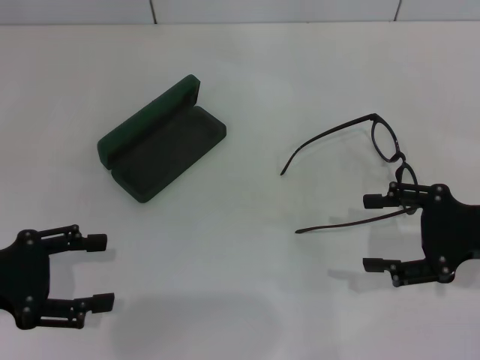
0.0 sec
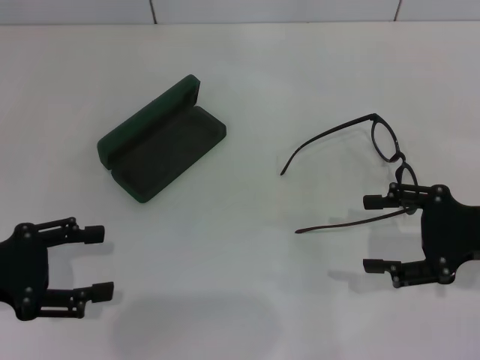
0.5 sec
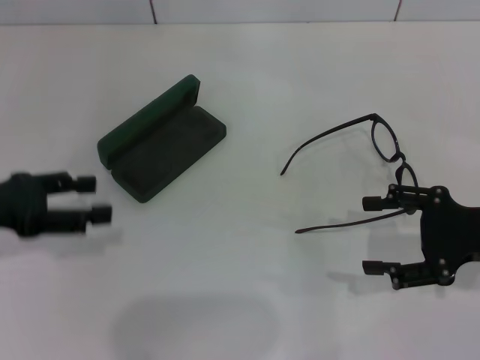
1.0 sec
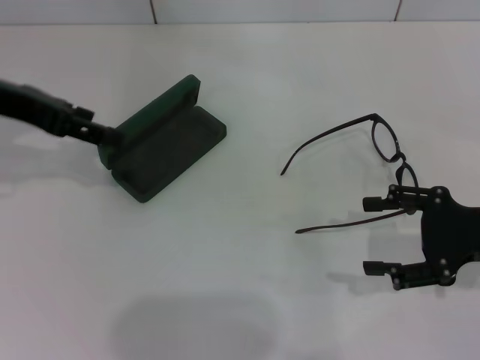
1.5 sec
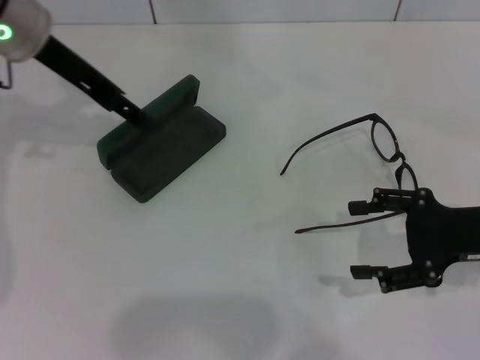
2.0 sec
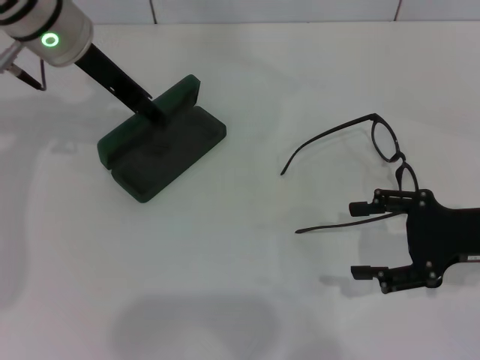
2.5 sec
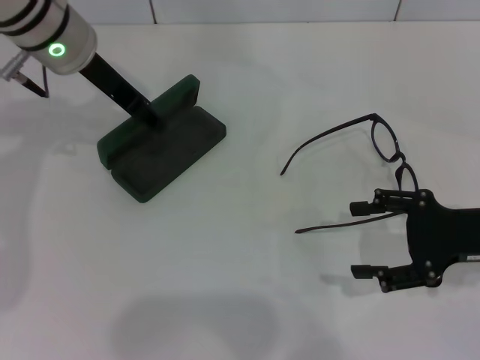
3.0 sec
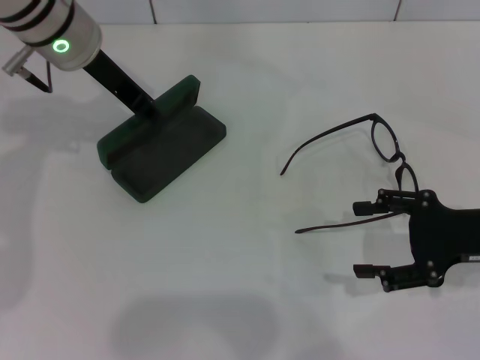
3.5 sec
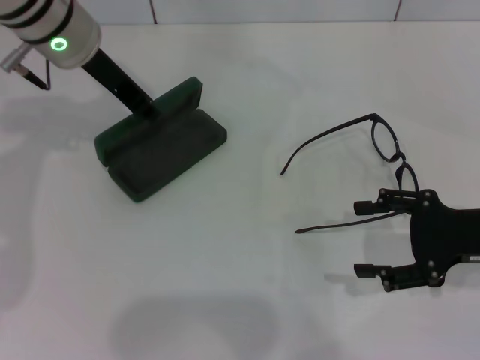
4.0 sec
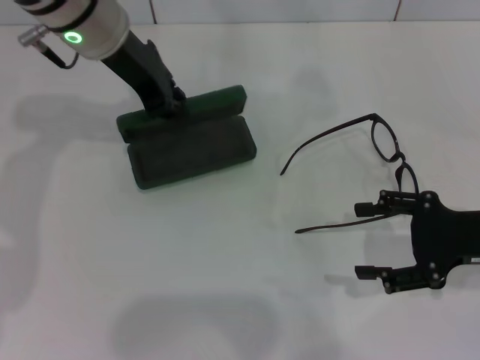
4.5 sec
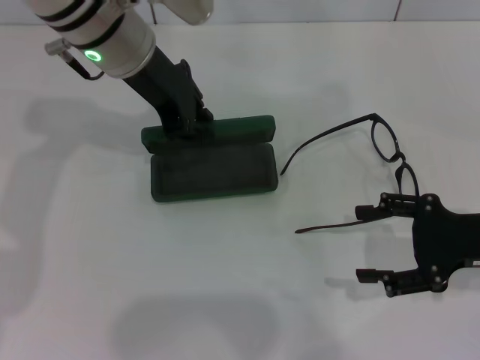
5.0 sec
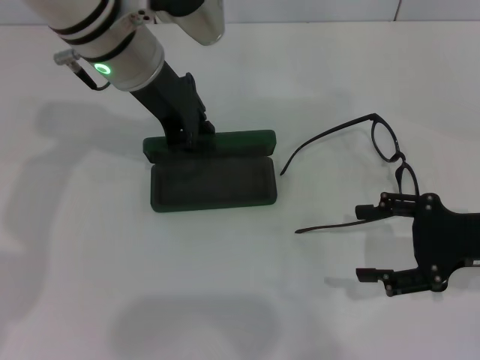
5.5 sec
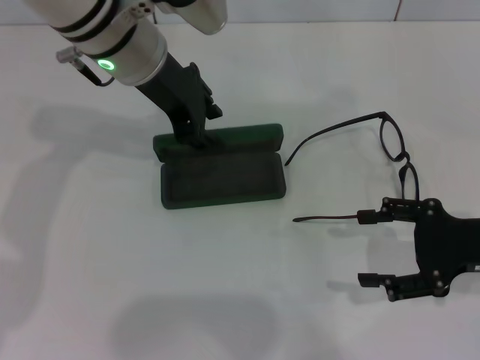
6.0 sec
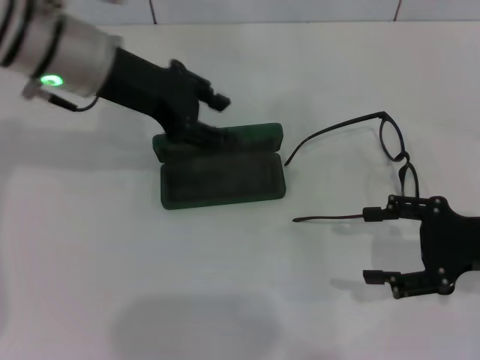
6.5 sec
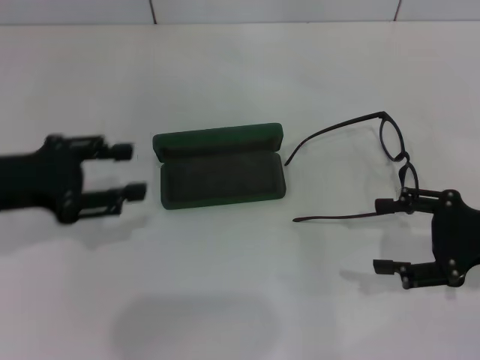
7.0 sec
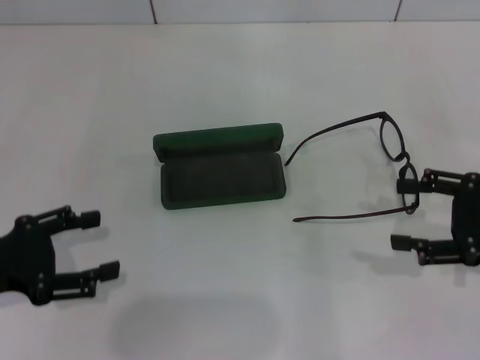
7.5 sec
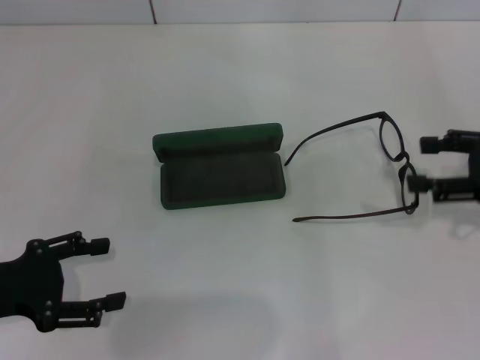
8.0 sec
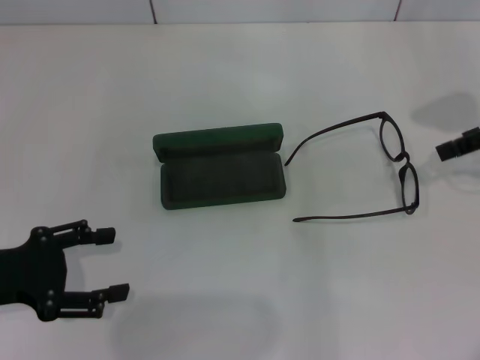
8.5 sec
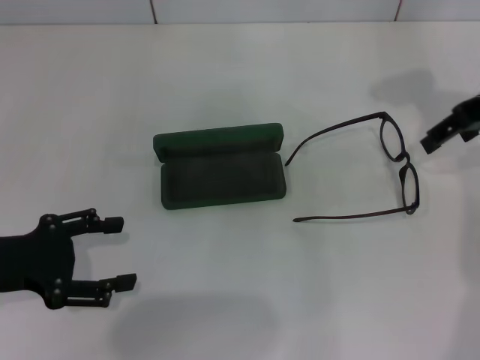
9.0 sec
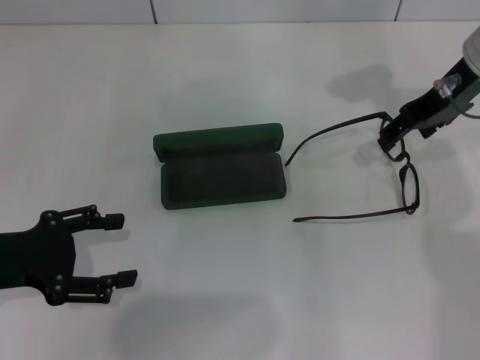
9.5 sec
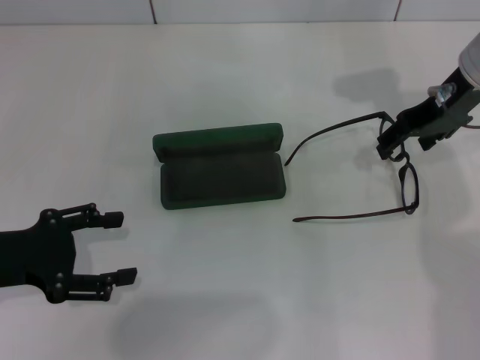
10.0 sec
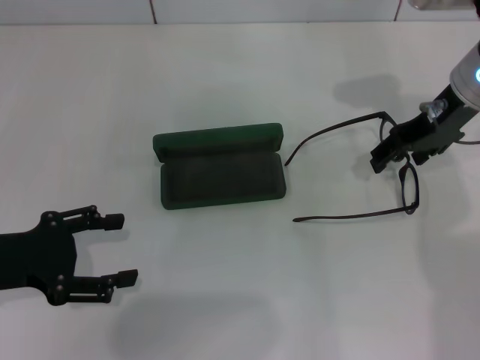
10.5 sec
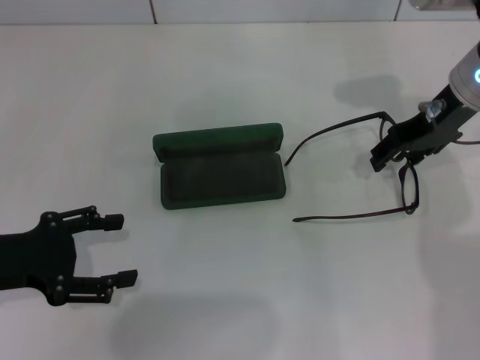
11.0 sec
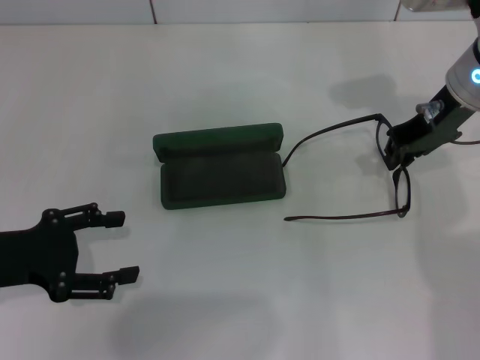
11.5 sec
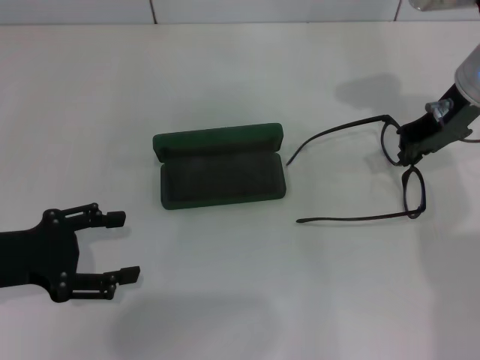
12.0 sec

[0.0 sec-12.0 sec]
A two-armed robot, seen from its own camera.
Step, 0.0 sec to 3.5 sec: Grab the glasses case with your left hand.
Step, 4.0 sec to 5.5 sec: Place the glasses case in the center of the table with your left hand.
Step, 6.0 sec to 11.5 sec: Grab the eyeglass frame with your right hand.
0.0 sec to 2.0 sec: The left gripper is displaced forward, upward and to the right by some 25 cm.
2.0 sec to 4.0 sec: The left gripper closes.
4.0 sec to 6.0 sec: The left gripper heads to the right, covering approximately 5 cm.
6.0 sec to 8.0 sec: The left gripper shifts about 30 cm to the left, backward and downward, and opens up, while the right gripper changes place by about 5 cm.
8.0 sec to 10.0 sec: The right gripper heads to the left, forward and upward, covering some 20 cm.
10.0 sec to 12.0 sec: The right gripper closes.

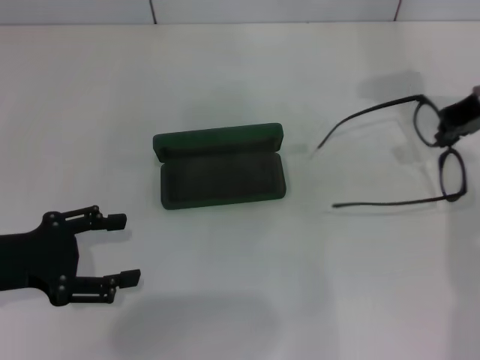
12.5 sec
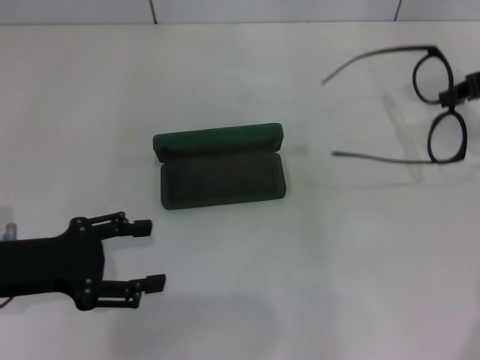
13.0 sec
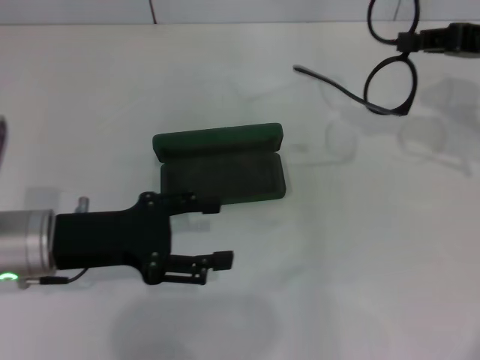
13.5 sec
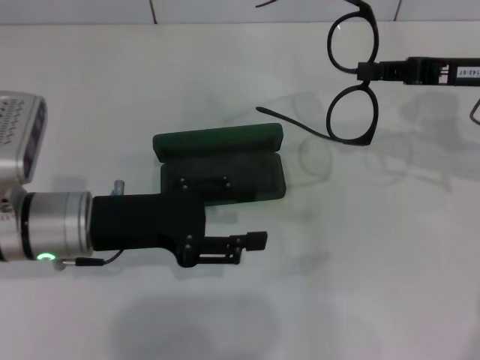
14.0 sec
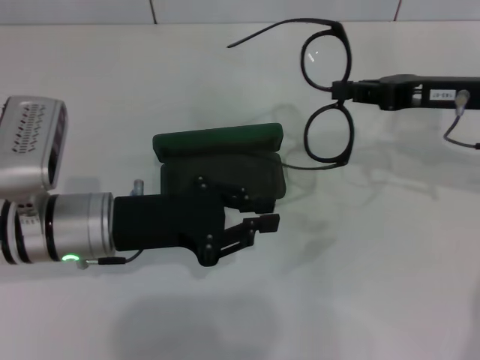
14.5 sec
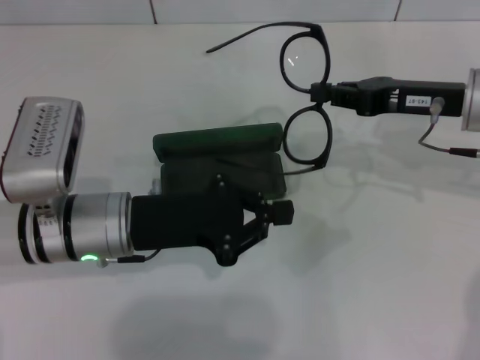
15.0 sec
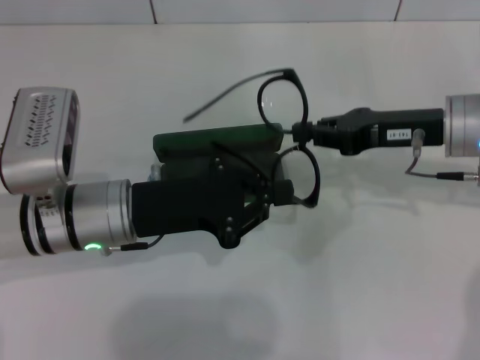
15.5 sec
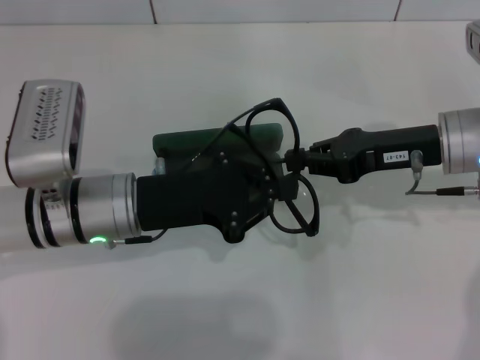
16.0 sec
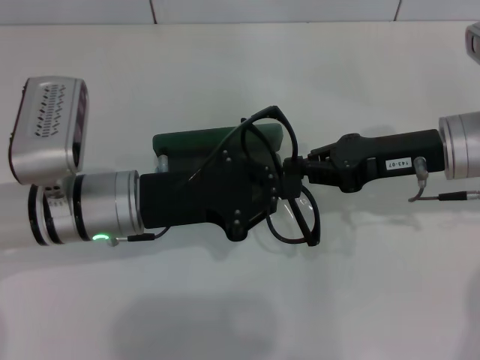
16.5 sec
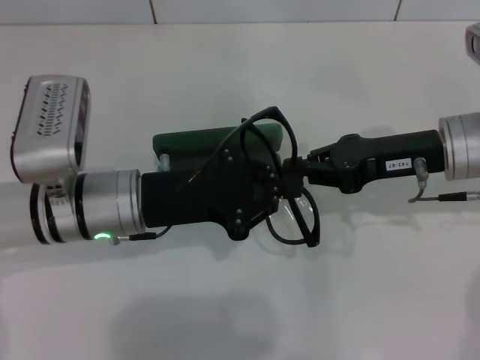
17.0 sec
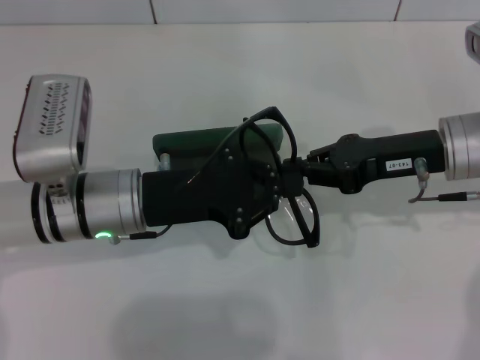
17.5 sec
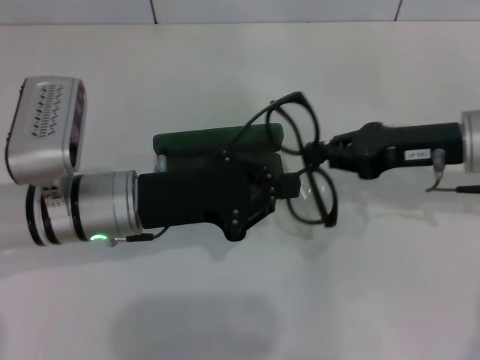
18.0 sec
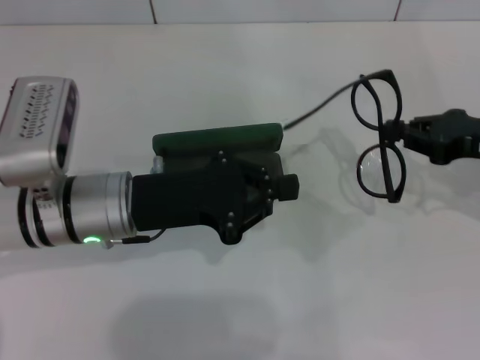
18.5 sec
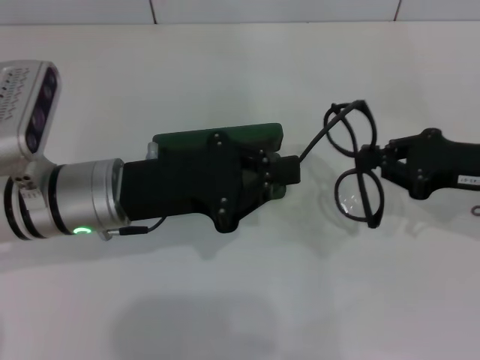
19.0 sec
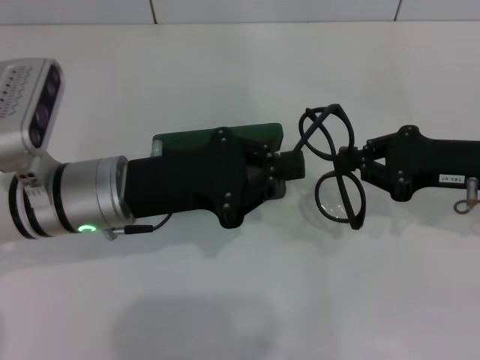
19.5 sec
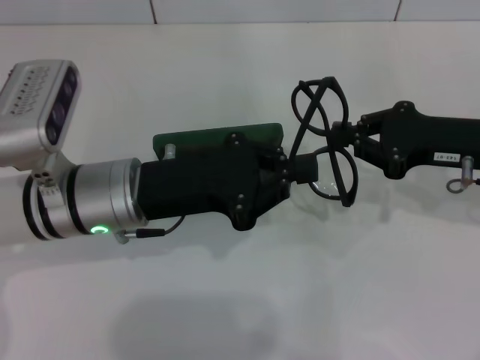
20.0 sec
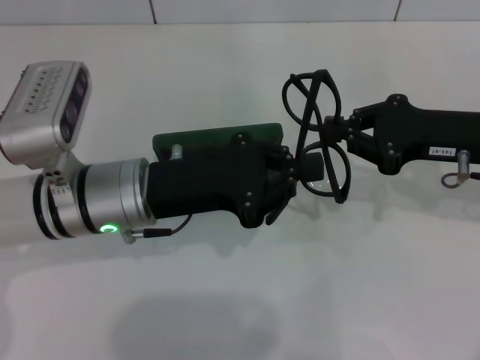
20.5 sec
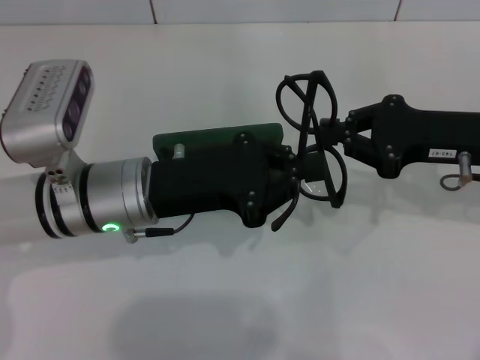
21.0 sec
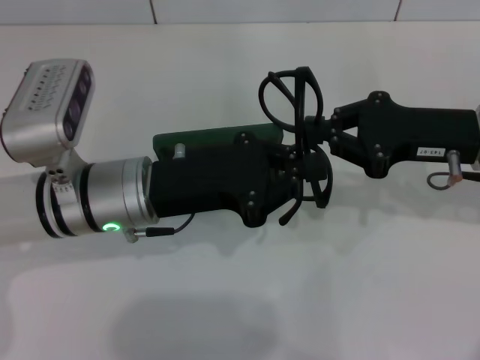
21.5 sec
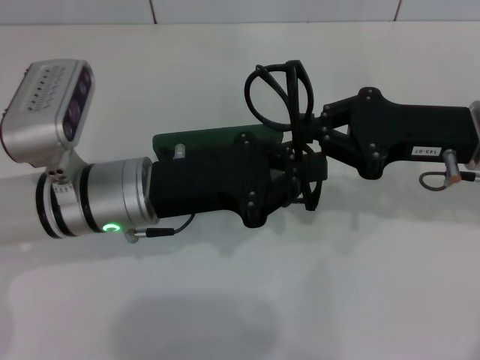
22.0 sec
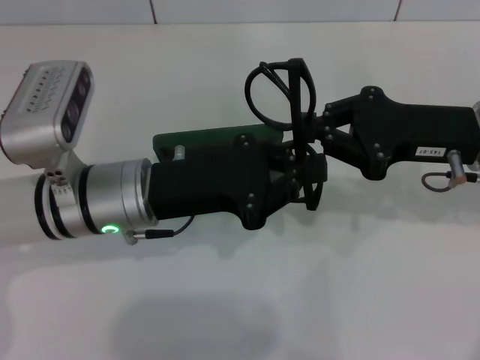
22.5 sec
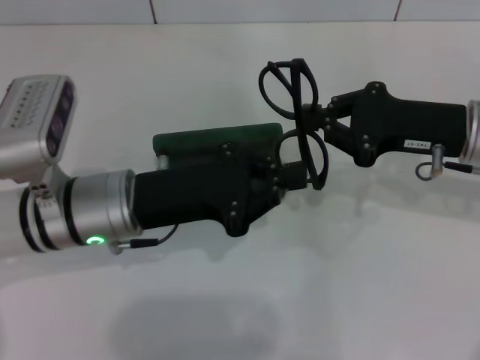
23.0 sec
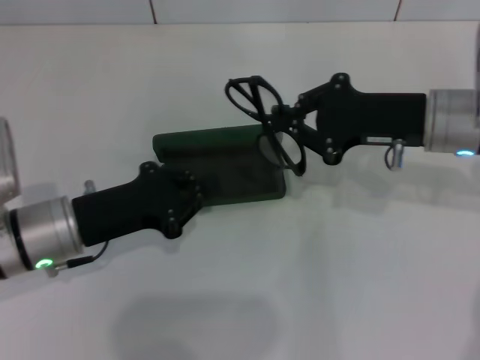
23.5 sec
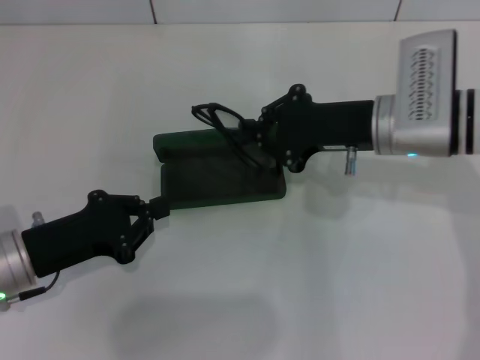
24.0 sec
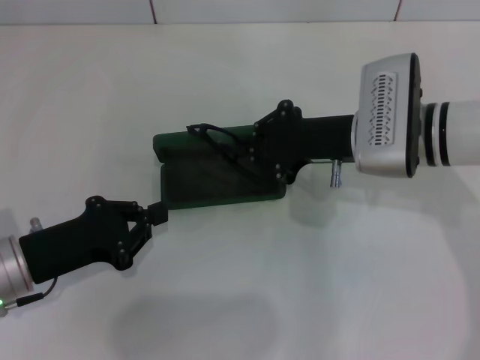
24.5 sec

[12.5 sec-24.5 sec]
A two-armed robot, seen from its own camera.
Step, 12.5 sec to 22.0 sec: Fold the frame with your left hand.
12.5 sec to 14.5 sec: The left gripper moves to the right, approximately 10 cm, and closes. The right gripper shifts about 5 cm downward.
14.5 sec to 16.5 sec: The right gripper shifts by about 5 cm. Meanwhile the left gripper closes its fingers.
16.5 sec to 18.5 sec: The right gripper goes approximately 10 cm to the right.
18.5 sec to 20.5 sec: The right gripper moves to the left, some 5 cm.
20.5 sec to 22.5 sec: The grippers stay close to where they were, moving slightly.
22.5 sec to 24.5 sec: The left gripper goes about 15 cm to the left, downward and backward, while the right gripper travels to the left by approximately 10 cm.

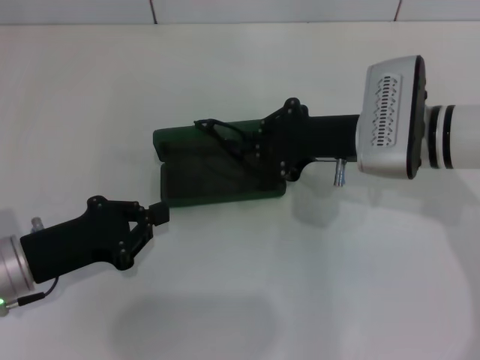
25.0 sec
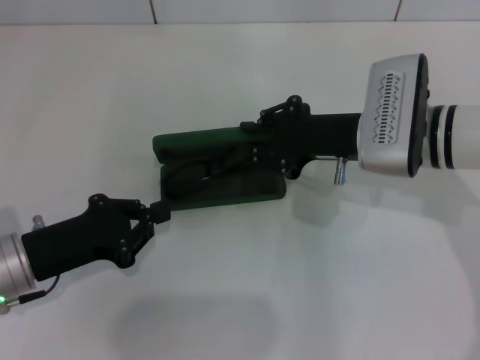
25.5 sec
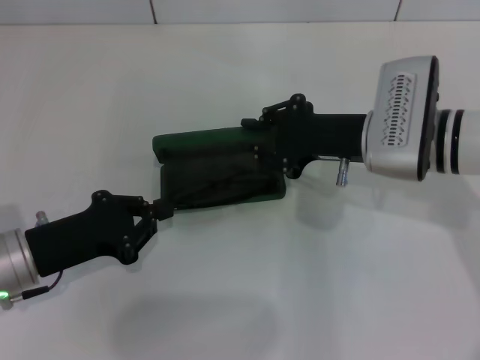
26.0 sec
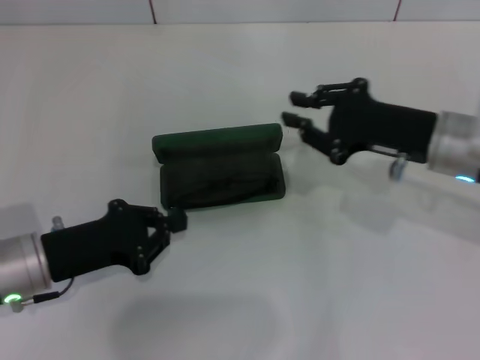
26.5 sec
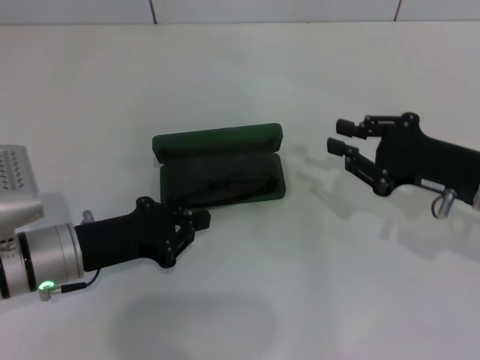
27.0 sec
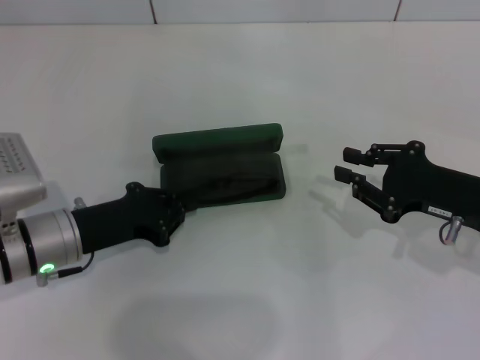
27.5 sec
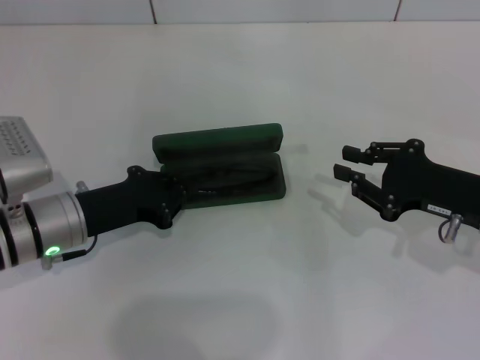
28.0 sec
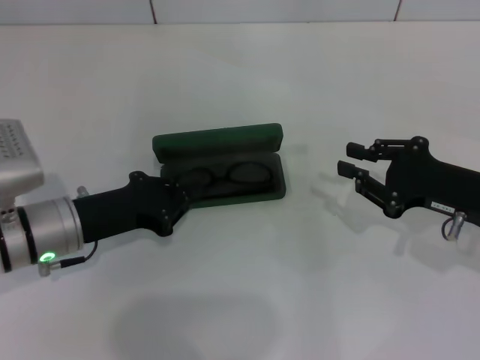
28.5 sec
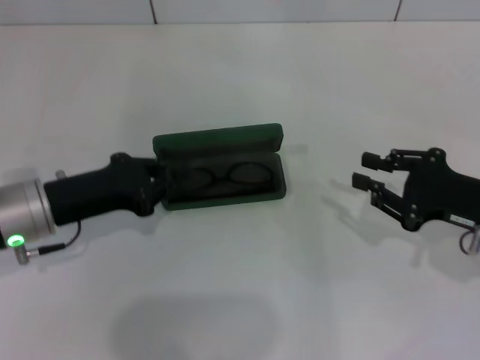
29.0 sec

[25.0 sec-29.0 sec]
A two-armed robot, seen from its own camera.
25.0 sec to 27.0 sec: The right gripper heads to the right and backward, covering about 10 cm.
27.0 sec to 29.0 sec: There are only small adjustments of the grippers.
